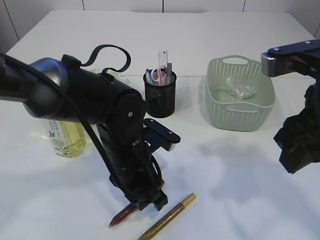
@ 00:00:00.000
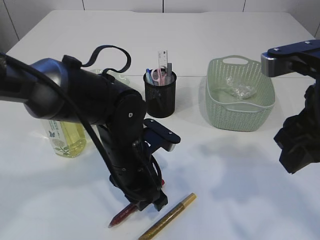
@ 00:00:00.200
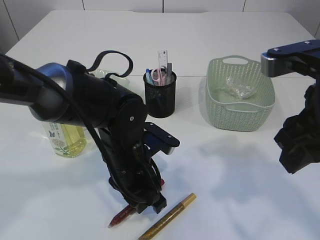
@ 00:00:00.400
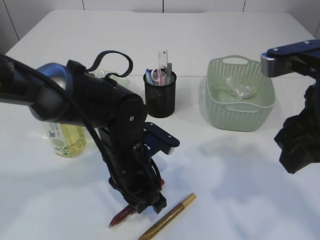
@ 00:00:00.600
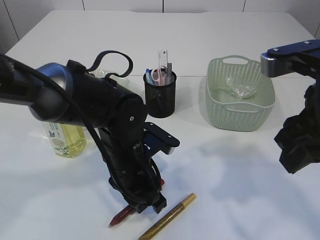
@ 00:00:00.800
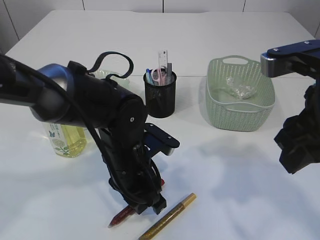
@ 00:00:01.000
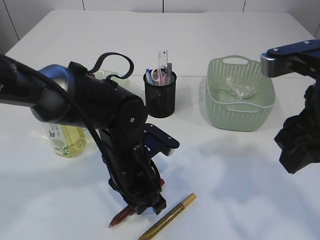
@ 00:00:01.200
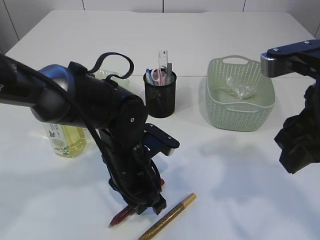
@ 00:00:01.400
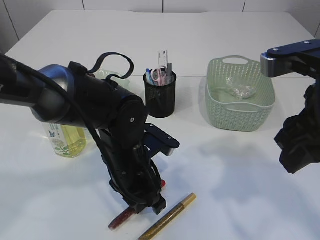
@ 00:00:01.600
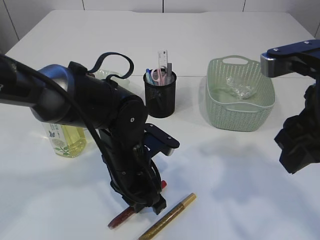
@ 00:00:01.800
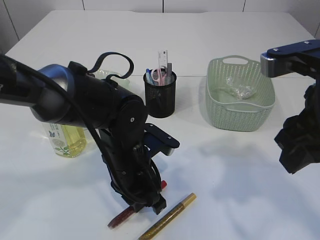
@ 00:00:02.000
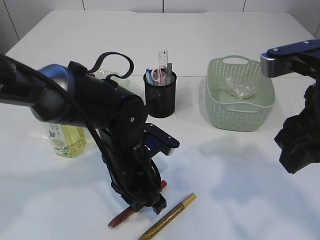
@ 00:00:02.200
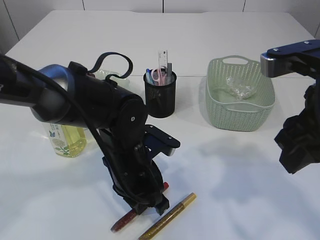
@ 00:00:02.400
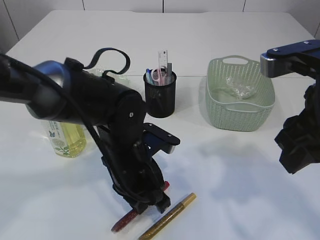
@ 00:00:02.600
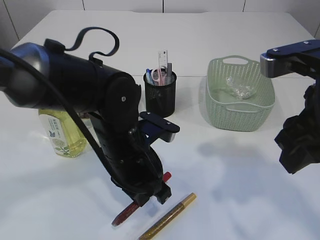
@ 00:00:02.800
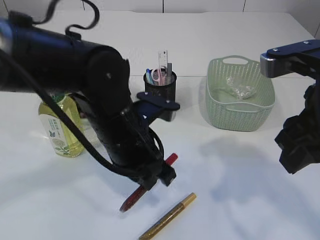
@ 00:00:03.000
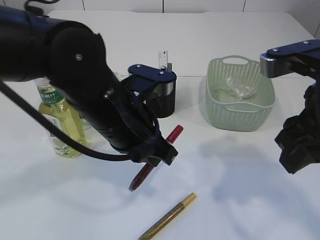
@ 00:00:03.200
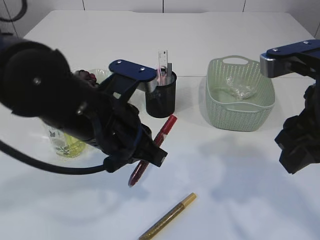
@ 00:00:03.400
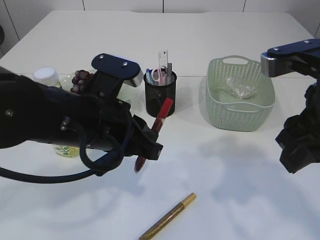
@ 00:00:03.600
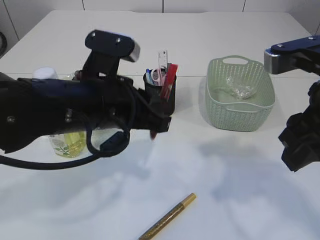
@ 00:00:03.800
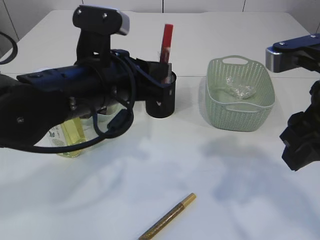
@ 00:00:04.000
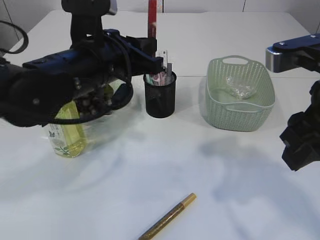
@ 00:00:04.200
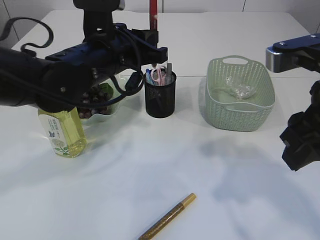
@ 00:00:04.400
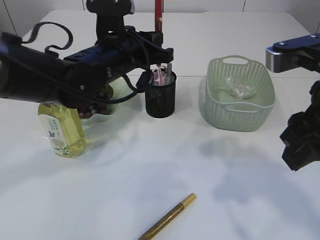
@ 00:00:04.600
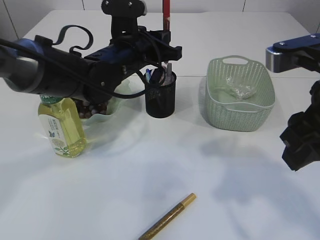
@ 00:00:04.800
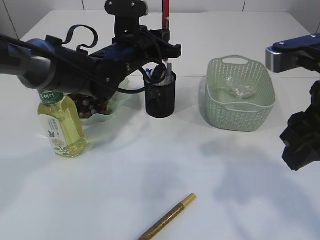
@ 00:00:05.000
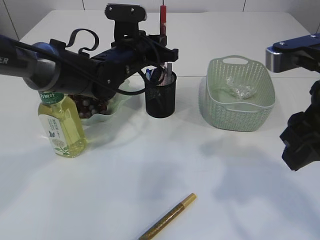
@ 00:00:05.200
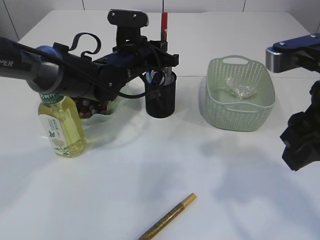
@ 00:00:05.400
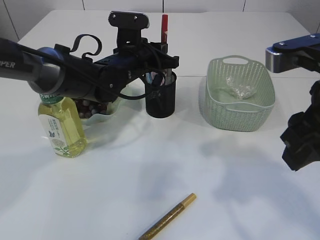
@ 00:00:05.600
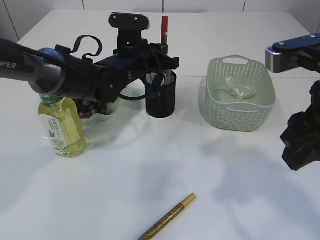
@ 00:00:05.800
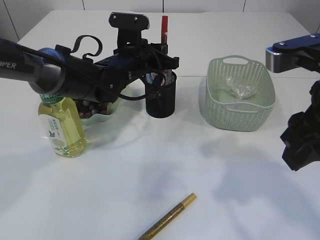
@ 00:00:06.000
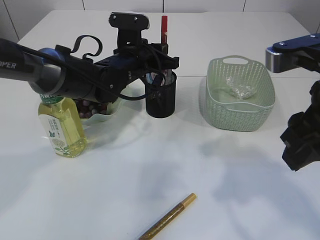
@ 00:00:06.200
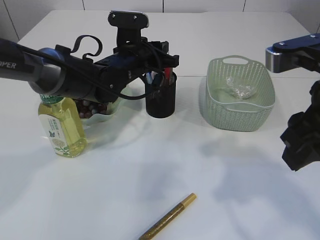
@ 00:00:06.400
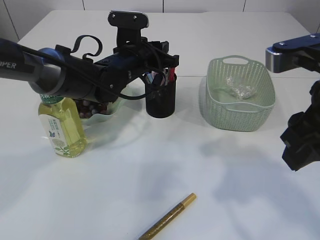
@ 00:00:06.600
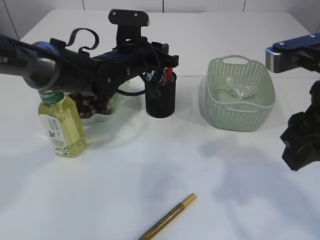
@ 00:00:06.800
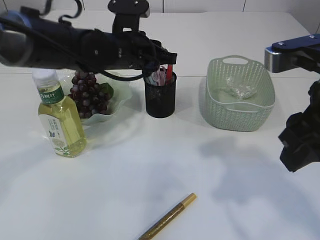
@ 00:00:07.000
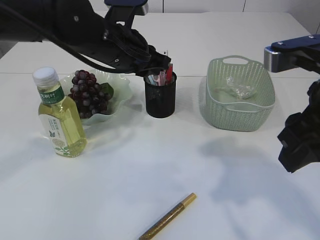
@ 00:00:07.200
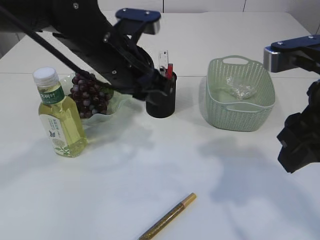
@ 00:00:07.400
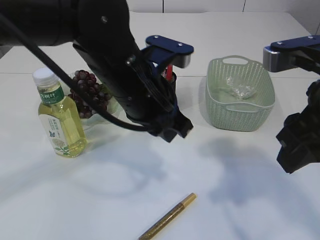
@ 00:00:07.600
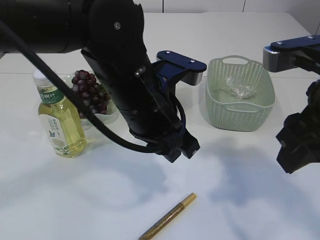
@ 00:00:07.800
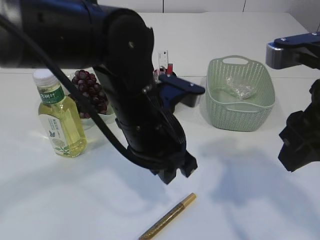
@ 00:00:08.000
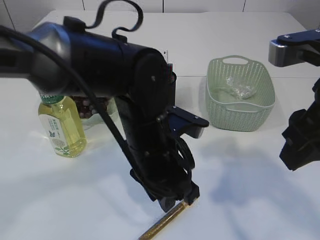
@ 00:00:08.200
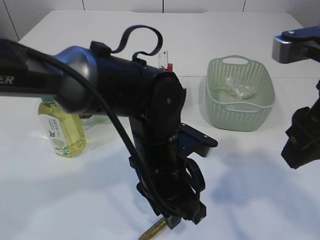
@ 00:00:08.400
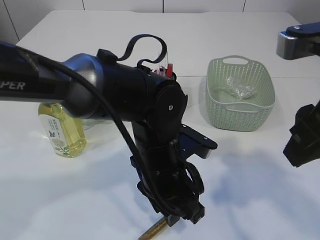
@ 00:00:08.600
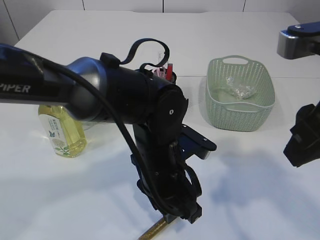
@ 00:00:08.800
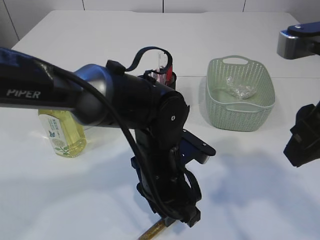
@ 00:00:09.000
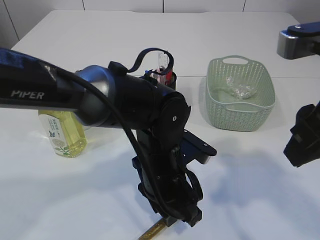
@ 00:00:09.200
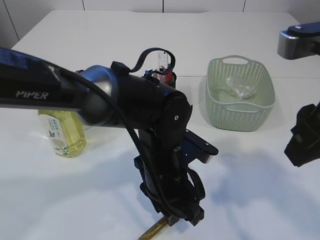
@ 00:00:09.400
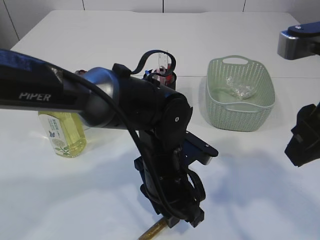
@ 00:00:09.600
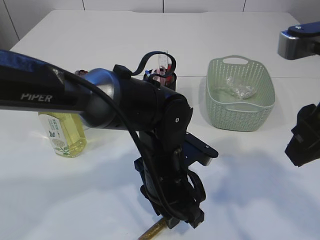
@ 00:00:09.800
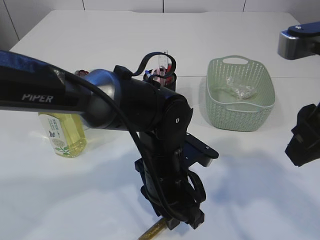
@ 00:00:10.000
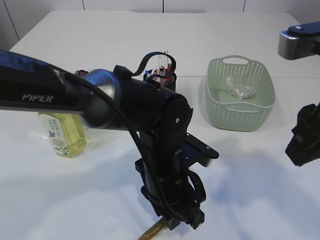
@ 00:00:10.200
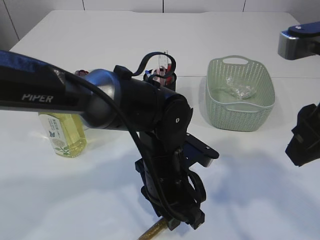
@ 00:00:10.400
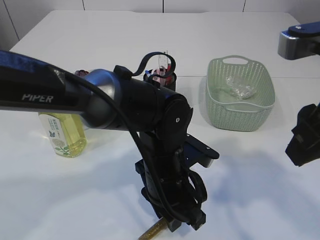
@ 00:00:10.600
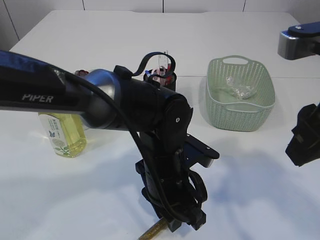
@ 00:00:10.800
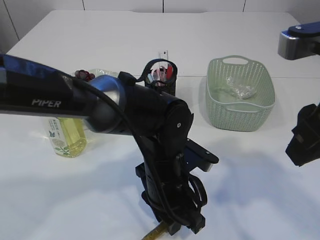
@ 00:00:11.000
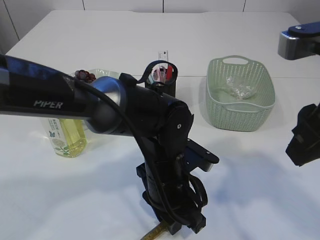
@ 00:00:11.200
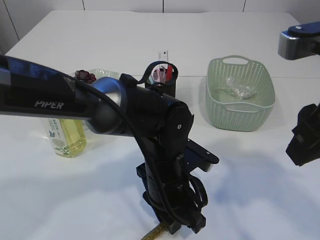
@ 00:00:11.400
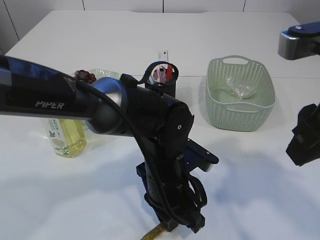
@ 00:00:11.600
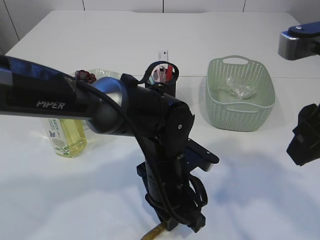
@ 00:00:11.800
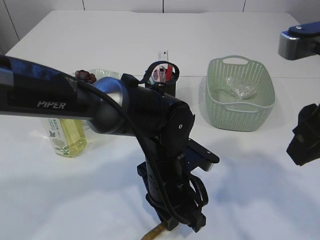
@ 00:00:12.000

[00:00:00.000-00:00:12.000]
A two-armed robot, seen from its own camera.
Step, 00:00:00.000 to 00:00:03.200: pick up the red glue.
Step, 00:00:03.400 to 00:00:07.000: place the red glue into the pen holder.
00:00:00.000 to 00:00:01.600: Both grippers stay about where they are.
00:00:01.600 to 00:00:03.000: The left gripper heads upward, covering roughly 5 cm.
00:00:03.000 to 00:00:04.400: The left gripper moves forward and upward, roughly 10 cm.
00:00:04.400 to 00:00:06.000: The left gripper goes about 10 cm forward and downward.
00:00:06.000 to 00:00:07.600: The left gripper shifts some 15 cm backward and upward.
00:00:07.600 to 00:00:09.000: The left gripper goes roughly 10 cm downward.
00:00:09.000 to 00:00:10.400: Both grippers stay put.
00:00:10.400 to 00:00:12.000: The two grippers keep their place.

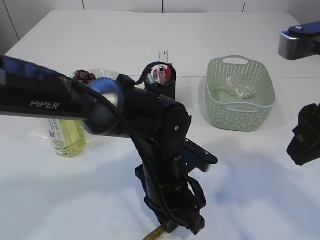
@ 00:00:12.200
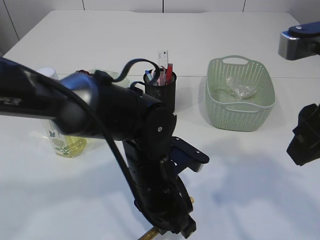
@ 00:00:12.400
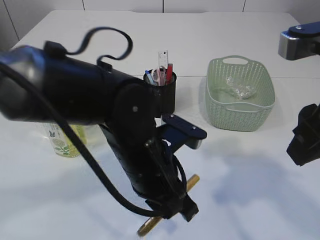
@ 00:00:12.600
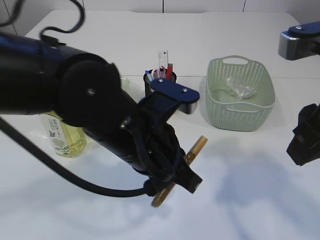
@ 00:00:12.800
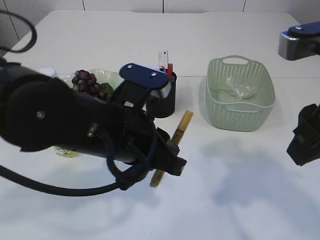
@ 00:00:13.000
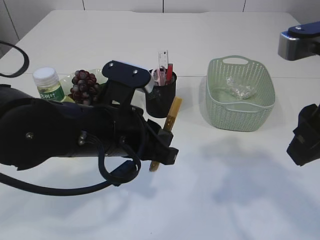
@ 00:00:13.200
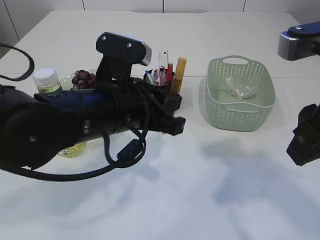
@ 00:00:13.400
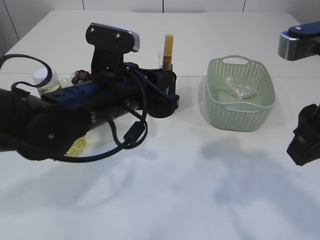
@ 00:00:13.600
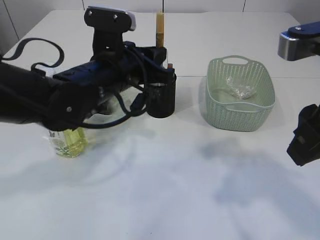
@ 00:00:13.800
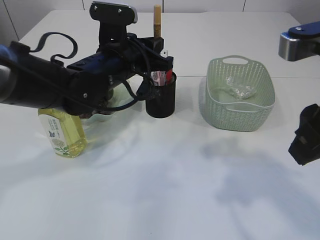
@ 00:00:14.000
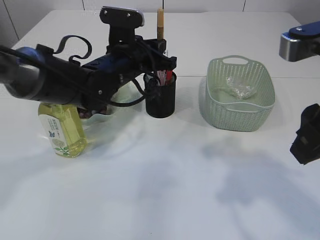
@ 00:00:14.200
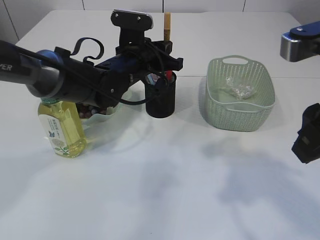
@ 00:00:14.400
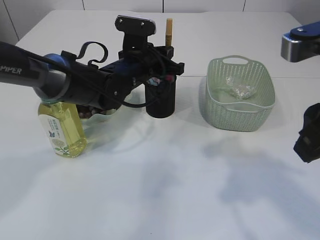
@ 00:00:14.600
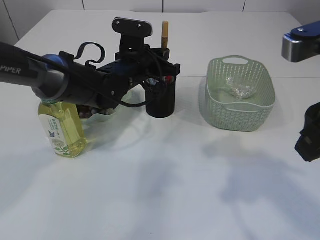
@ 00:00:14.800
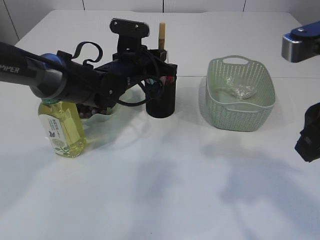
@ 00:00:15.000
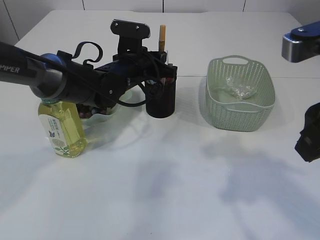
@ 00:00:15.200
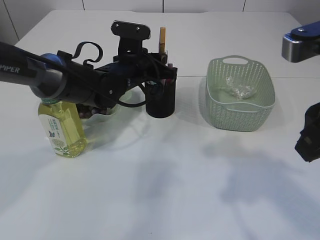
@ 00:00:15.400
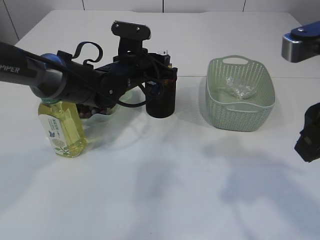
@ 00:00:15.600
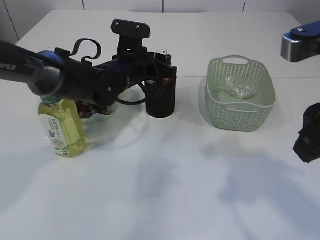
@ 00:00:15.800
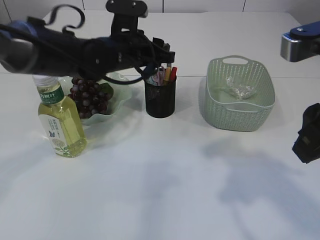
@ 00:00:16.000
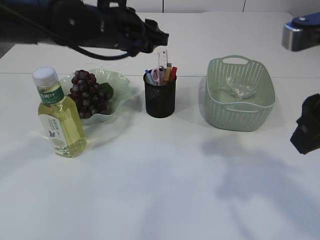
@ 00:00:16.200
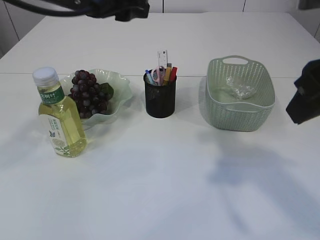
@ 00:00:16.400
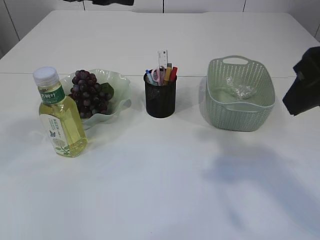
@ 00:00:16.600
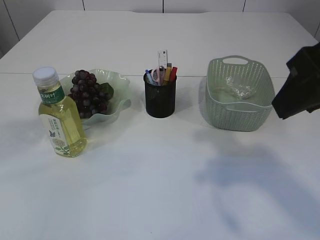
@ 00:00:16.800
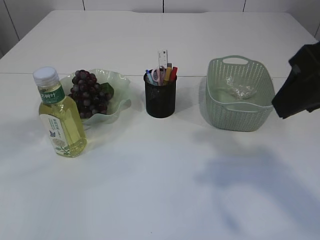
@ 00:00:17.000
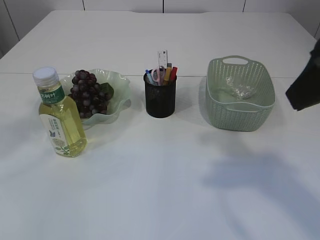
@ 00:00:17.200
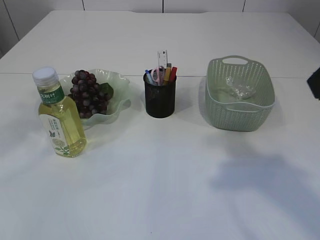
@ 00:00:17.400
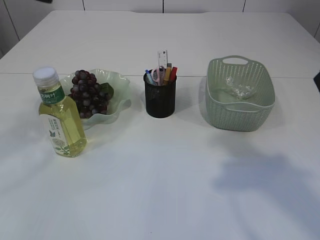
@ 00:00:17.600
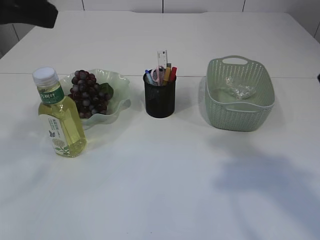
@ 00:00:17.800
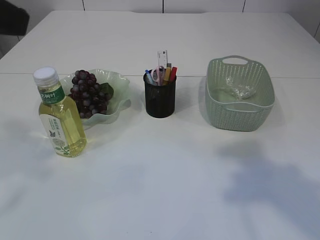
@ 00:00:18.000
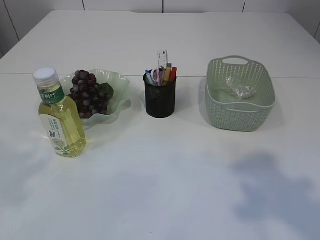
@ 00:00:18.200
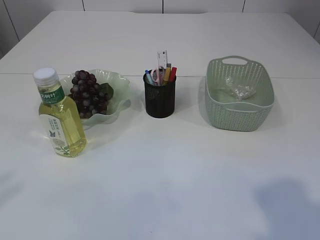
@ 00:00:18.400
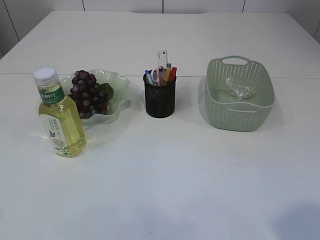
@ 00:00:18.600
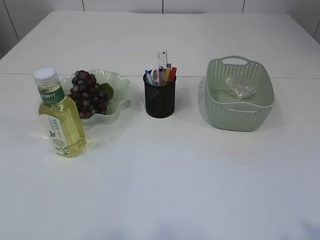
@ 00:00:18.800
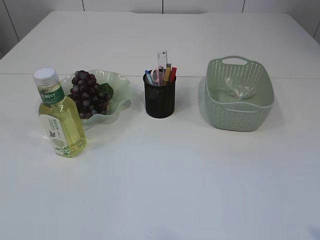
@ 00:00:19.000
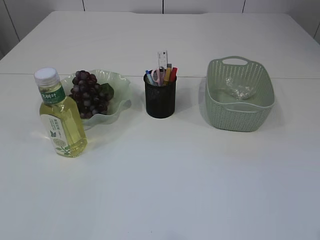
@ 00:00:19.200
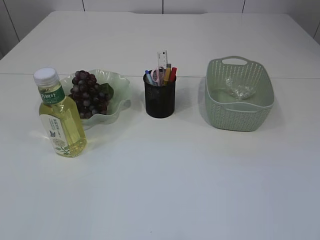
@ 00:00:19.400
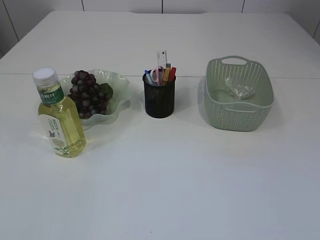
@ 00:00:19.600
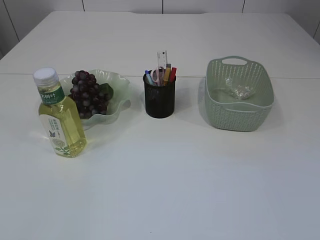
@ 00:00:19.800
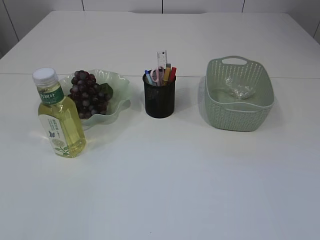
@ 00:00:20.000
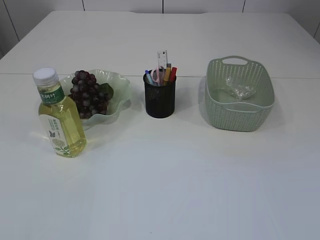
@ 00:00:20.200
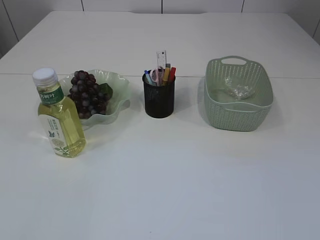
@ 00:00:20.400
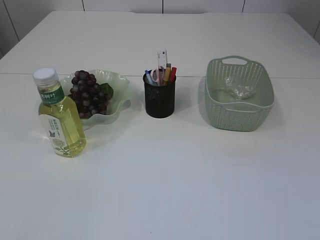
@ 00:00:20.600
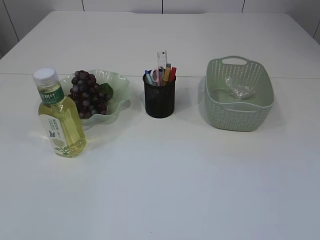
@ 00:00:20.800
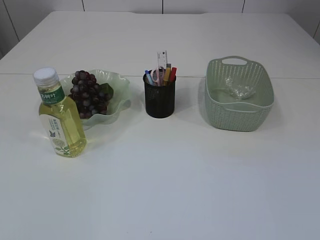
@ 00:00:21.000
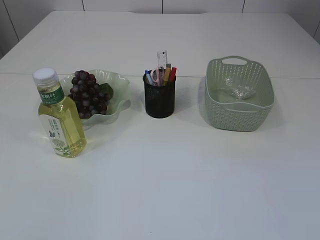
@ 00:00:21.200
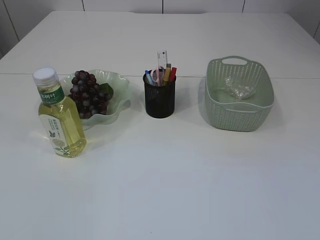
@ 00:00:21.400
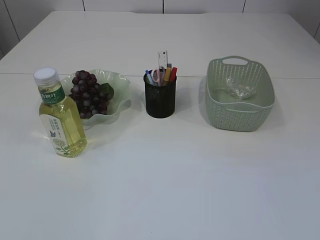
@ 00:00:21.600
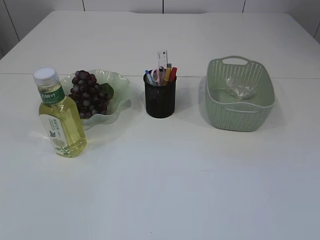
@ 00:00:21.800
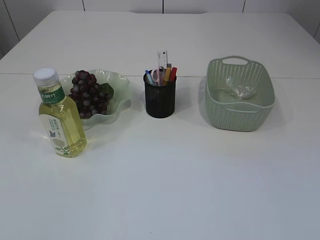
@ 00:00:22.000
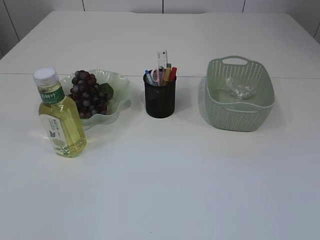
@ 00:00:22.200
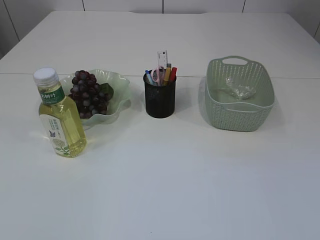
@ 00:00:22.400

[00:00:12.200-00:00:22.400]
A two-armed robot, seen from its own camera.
Step, 00:00:12.800 to 00:00:16.200: place the yellow glue into the pen holder.
00:00:12.200 to 00:00:13.600: The left gripper moves upward and to the left, roughly 15 cm.
00:00:13.600 to 00:00:15.200: The left gripper is displaced forward by about 15 cm.
00:00:15.200 to 00:00:16.600: The left gripper shifts approximately 25 cm upward and backward, and opens.
00:00:16.600 to 00:00:18.000: The right gripper moves backward, roughly 5 cm. Meanwhile the left gripper goes roughly 15 cm backward and to the left.
00:00:18.000 to 00:00:19.400: The left gripper is displaced backward, to the left and downward by approximately 25 cm. Meanwhile the right gripper is displaced backward, downward and to the right by about 20 cm.
00:00:21.000 to 00:00:22.400: The two grippers keep their place.
